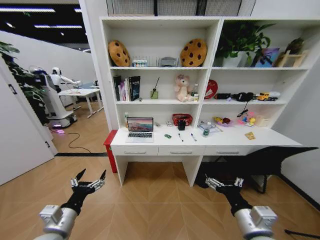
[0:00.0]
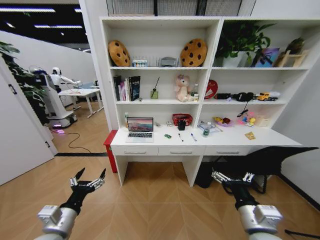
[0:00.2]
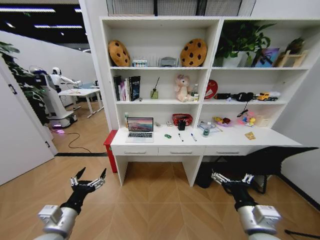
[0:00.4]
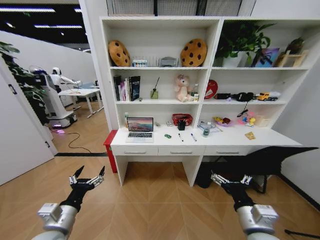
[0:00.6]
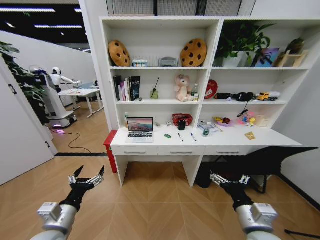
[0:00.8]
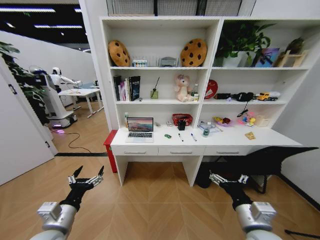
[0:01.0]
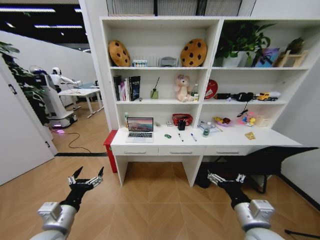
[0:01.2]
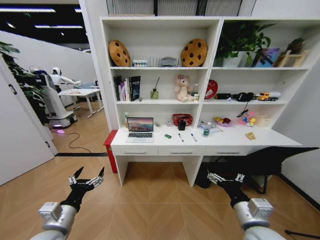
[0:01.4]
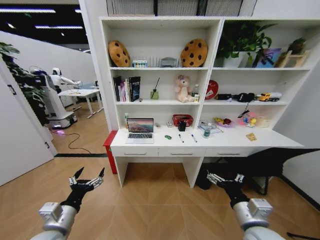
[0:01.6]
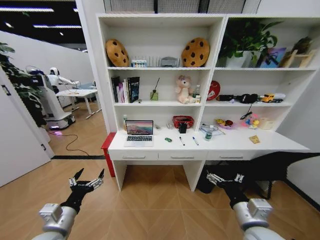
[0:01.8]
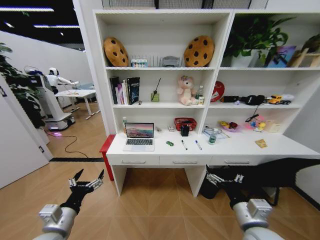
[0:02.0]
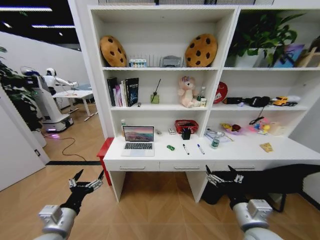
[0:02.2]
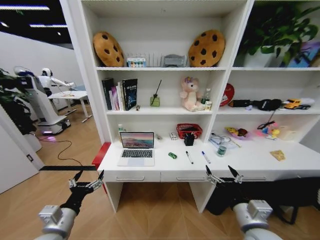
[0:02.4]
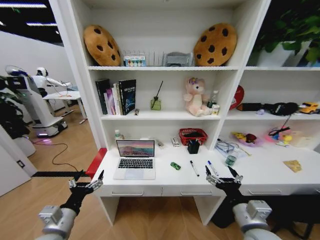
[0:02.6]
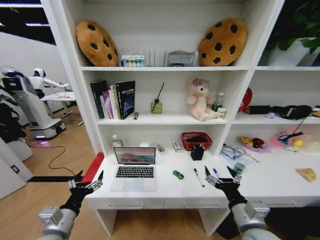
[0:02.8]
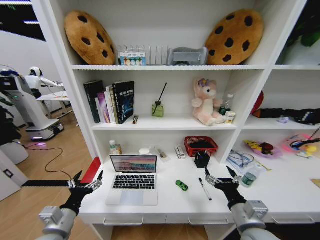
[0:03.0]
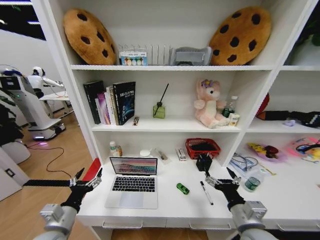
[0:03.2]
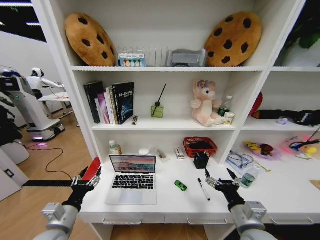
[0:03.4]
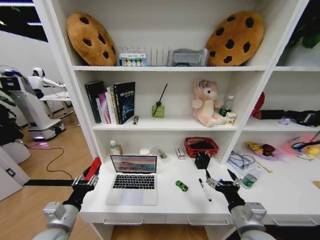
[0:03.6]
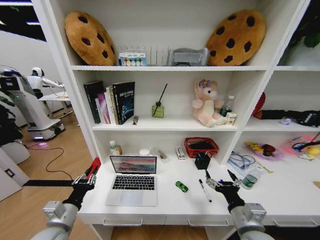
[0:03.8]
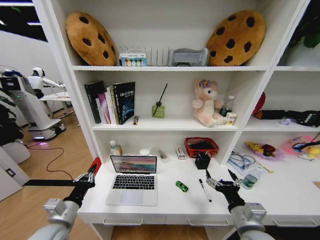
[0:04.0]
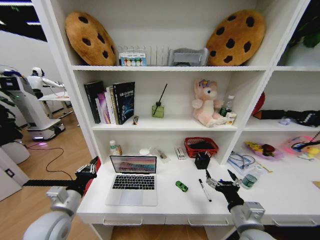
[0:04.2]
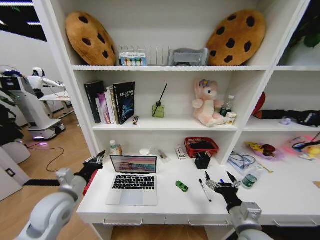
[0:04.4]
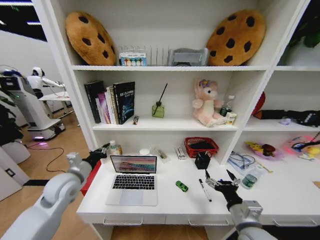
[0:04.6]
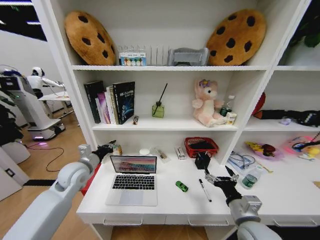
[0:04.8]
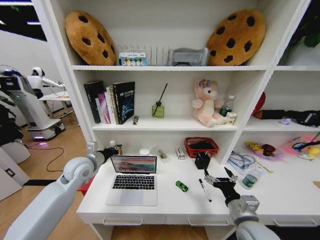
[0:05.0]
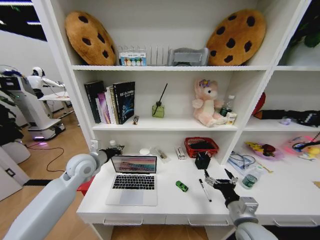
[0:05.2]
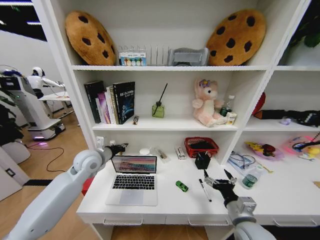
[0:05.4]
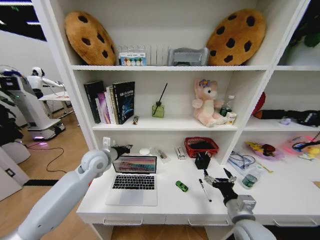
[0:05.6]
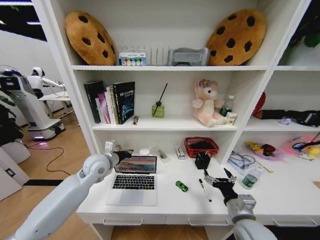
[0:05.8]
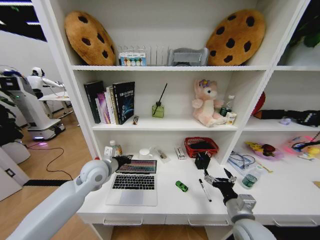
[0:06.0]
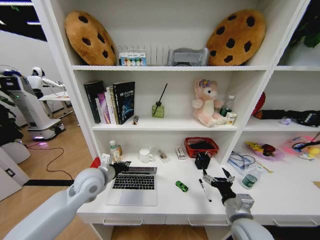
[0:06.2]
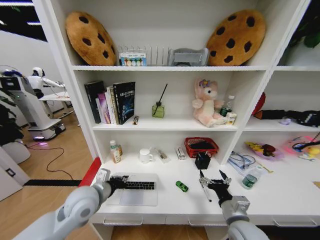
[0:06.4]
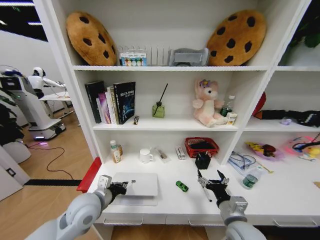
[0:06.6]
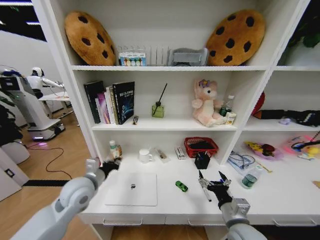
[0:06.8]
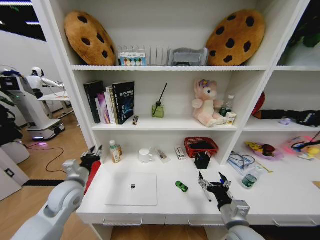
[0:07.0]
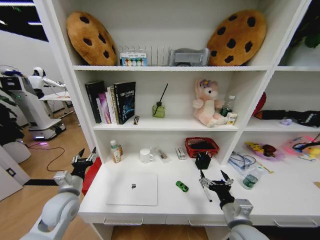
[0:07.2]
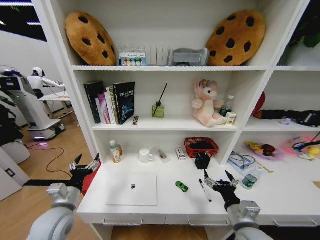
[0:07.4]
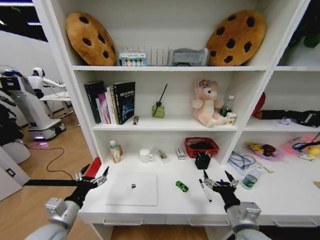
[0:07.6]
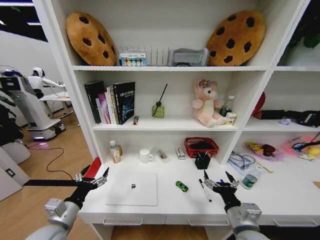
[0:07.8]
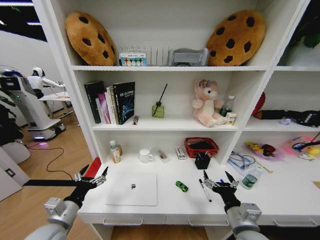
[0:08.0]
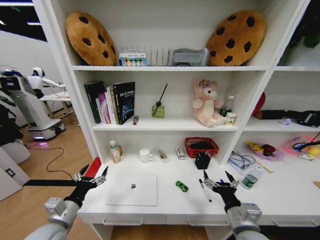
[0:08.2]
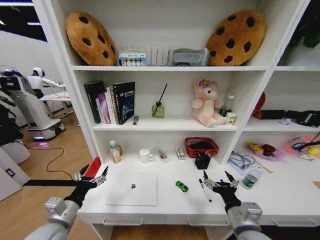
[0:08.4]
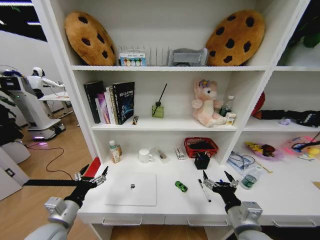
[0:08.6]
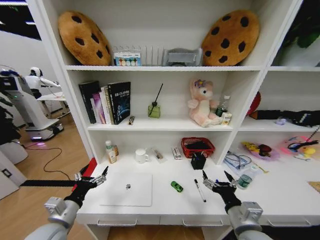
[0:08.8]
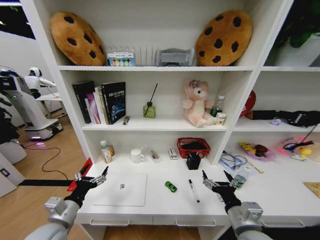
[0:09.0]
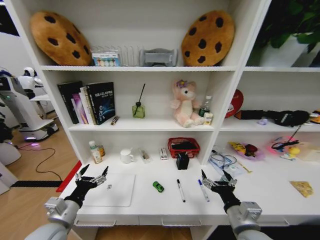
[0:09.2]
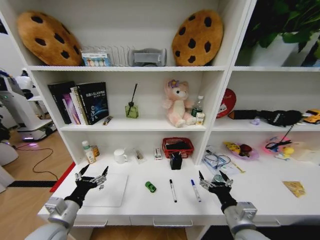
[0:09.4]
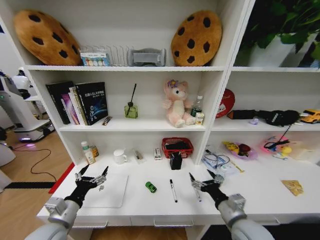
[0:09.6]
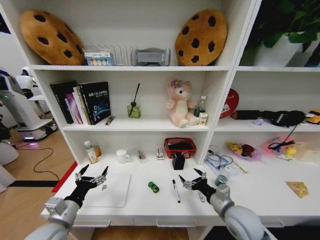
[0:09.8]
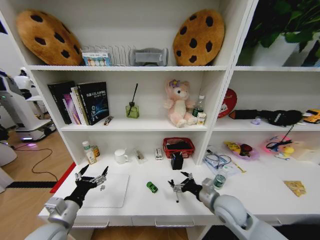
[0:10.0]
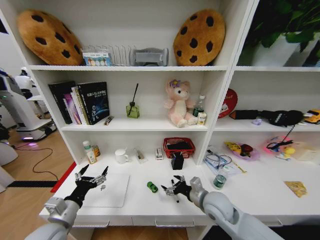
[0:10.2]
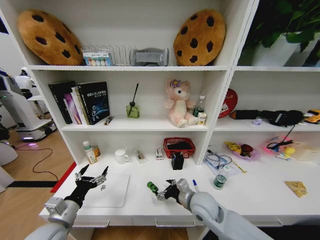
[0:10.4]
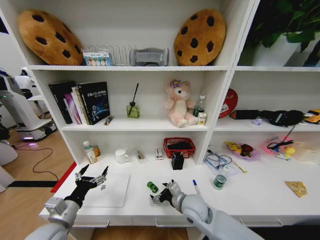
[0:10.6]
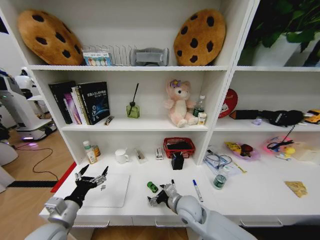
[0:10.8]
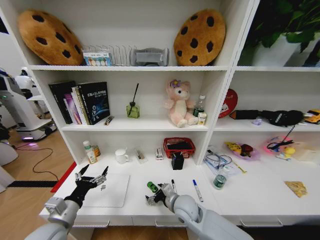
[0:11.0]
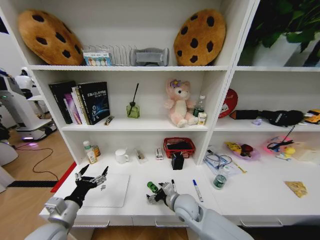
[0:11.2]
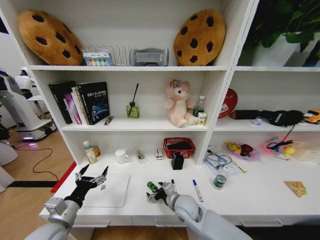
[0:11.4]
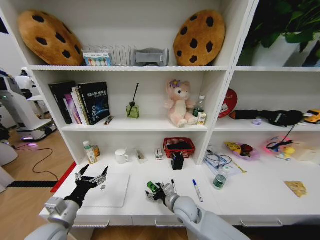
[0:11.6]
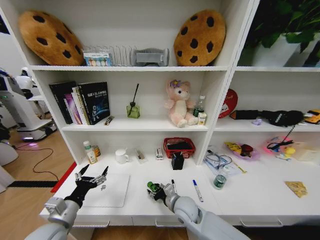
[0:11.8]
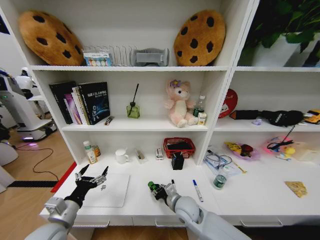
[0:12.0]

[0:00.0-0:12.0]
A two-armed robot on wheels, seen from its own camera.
Task of the whole recording: Organize the objects on the table.
0:03.0 to 0:04.4: The left gripper moves forward and upward, roughly 10 cm, and closes up.
0:04.4 to 0:06.0: The left gripper goes about 15 cm forward and to the right.
0:06.0 to 0:07.6: The left gripper goes forward and backward, some 20 cm each way, reversing 2 times, and opens its fingers.
0:09.0 to 0:10.4: The right gripper is displaced forward and to the left by some 15 cm.
0:10.4 to 0:12.0: The right gripper moves downward, about 5 cm, and closes its fingers.

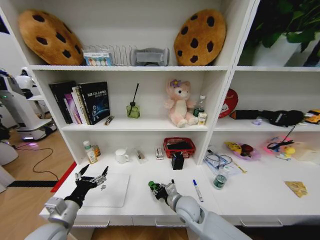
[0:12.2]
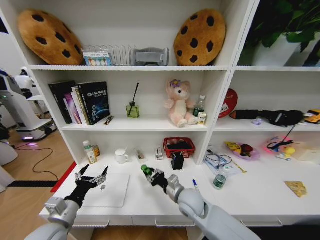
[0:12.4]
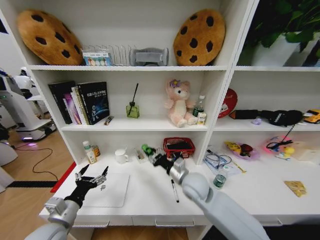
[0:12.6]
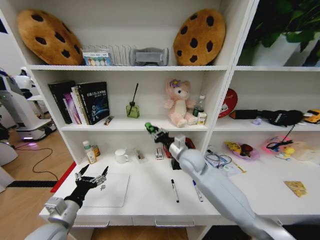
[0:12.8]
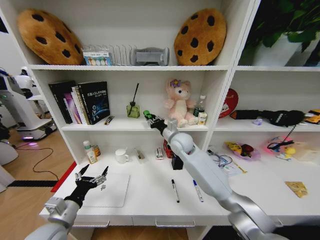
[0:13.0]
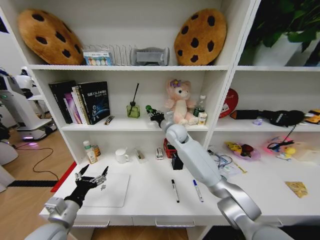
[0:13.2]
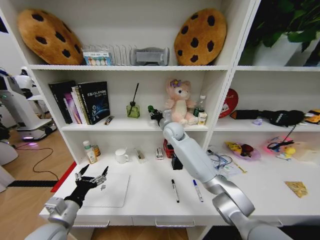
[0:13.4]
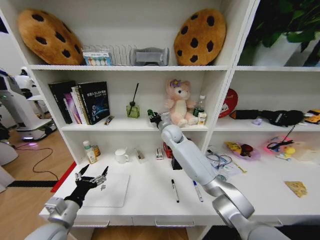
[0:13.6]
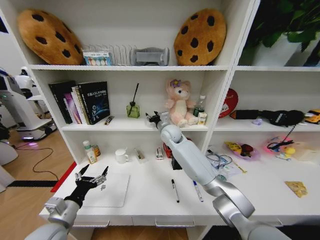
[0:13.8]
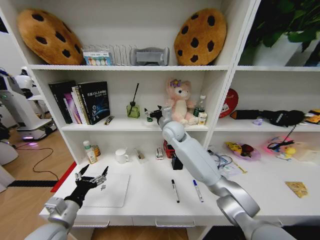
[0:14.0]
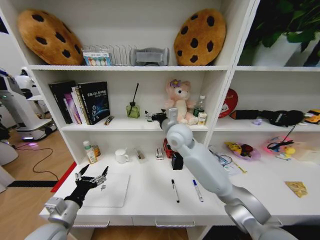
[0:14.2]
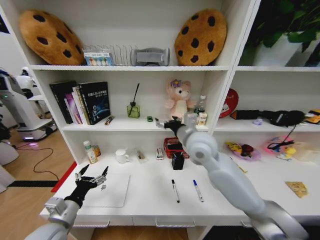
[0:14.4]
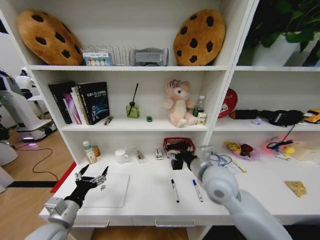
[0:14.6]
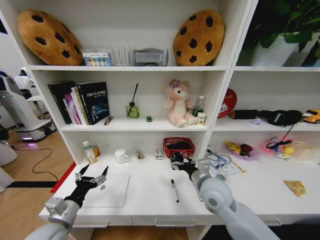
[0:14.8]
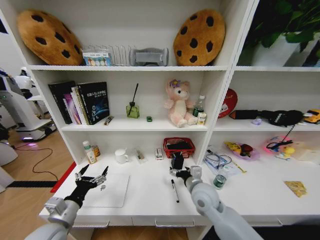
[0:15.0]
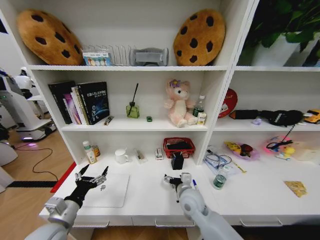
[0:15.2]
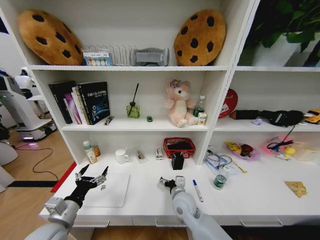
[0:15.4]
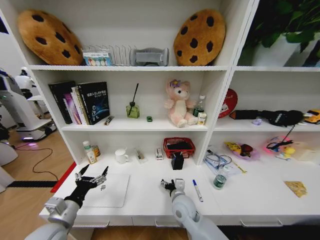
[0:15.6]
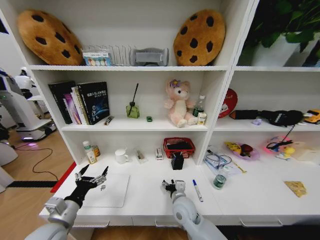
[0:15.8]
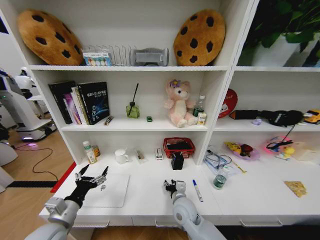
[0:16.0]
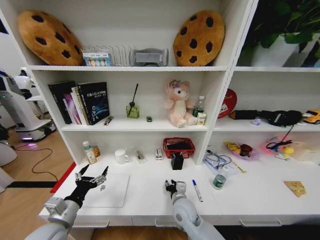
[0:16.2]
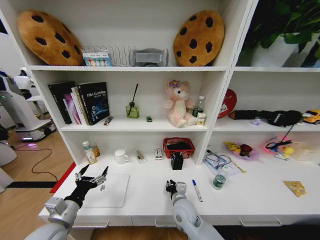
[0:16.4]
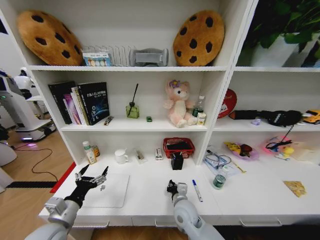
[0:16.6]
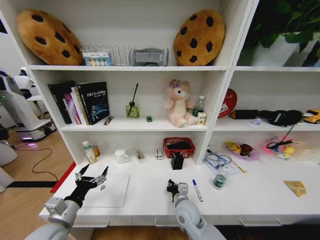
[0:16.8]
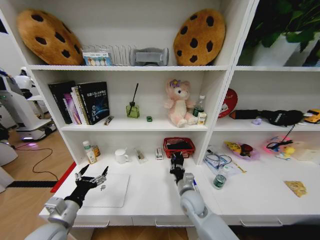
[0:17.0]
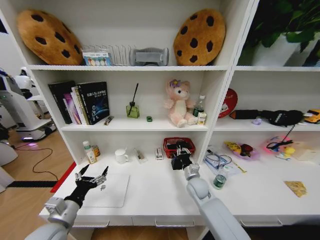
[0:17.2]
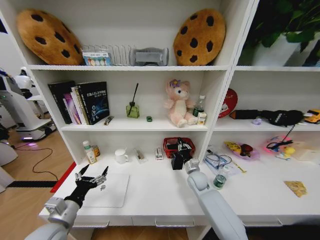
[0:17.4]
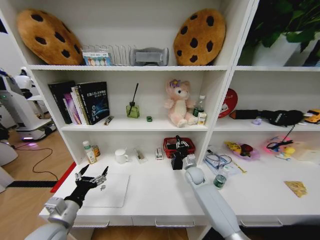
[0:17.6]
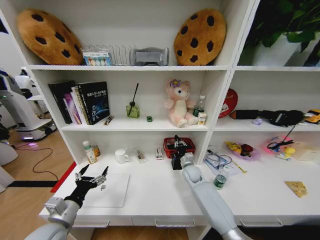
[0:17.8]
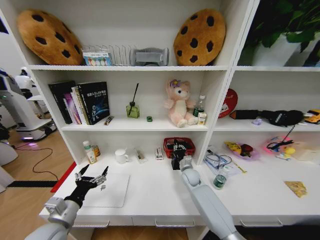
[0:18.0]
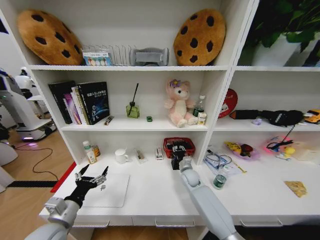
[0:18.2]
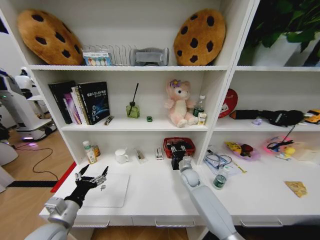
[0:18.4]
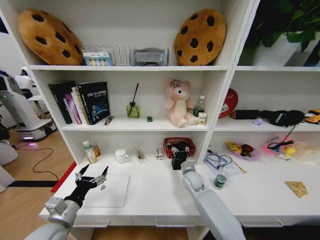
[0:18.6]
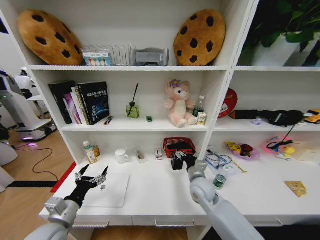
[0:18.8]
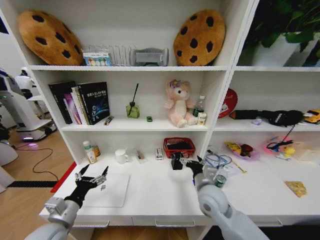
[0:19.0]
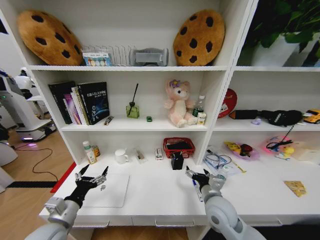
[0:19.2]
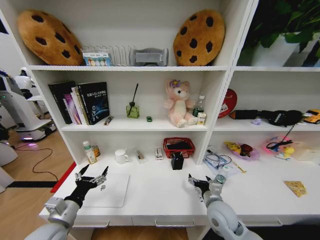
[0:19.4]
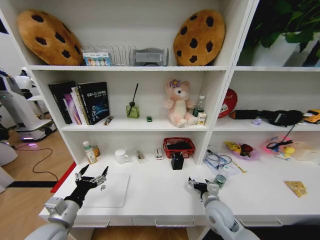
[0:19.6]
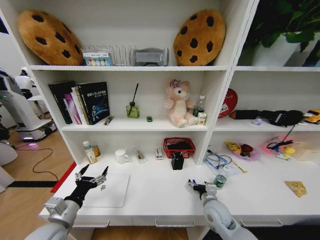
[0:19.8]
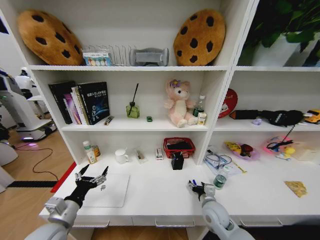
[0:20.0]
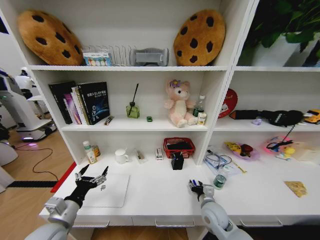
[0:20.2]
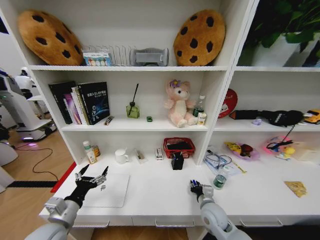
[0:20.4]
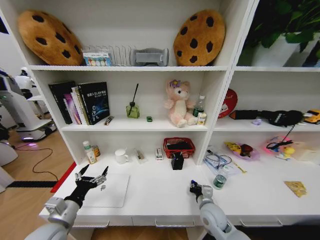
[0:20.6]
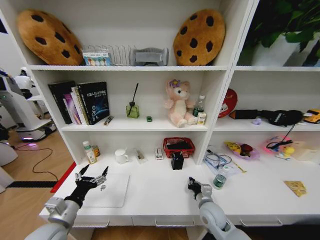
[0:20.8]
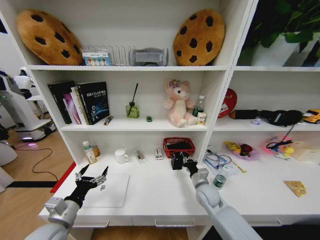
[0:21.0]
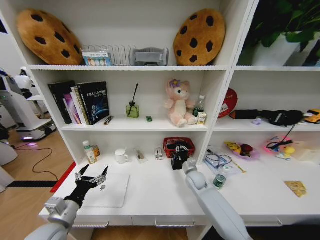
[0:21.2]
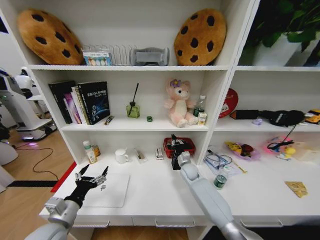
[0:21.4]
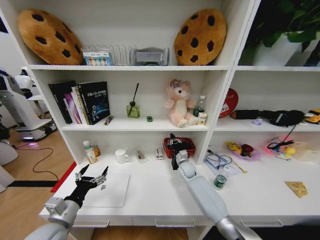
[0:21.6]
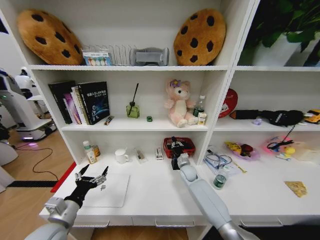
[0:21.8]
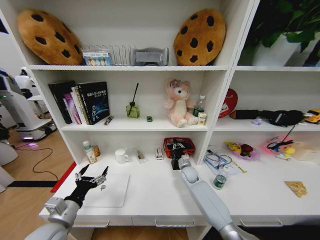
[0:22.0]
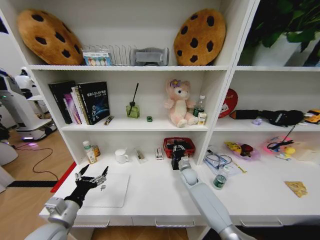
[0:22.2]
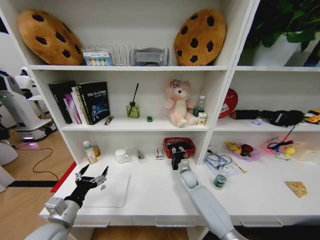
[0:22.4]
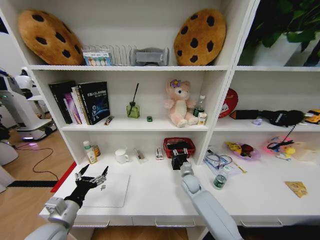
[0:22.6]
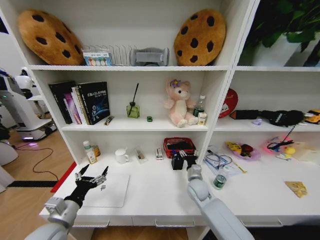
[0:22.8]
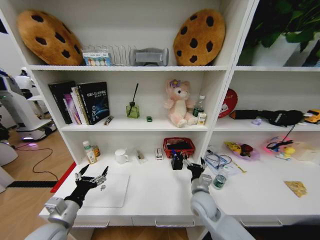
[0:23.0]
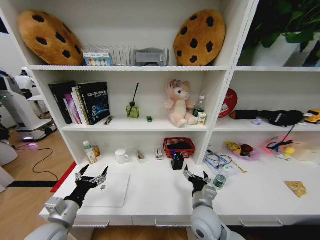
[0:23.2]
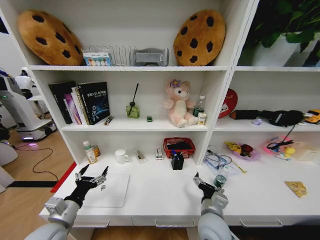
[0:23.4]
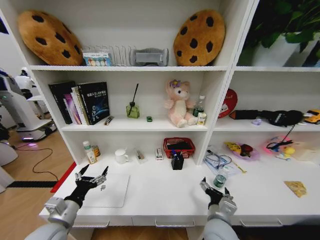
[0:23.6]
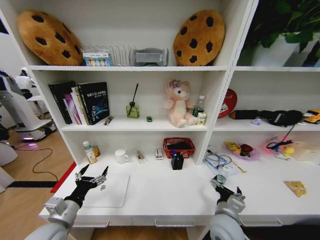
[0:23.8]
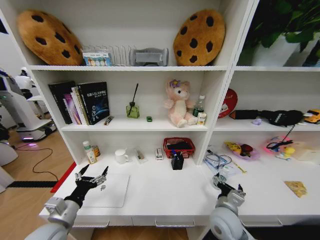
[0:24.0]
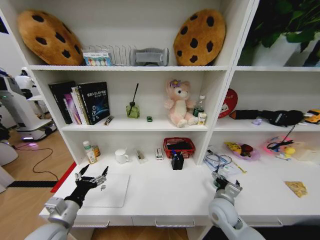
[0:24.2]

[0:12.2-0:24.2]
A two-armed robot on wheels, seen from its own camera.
Task of the whole recording: Organize the objects on the table.
0:12.2 to 0:13.8: The right gripper travels forward and upward by some 30 cm.
0:13.8 to 0:15.2: The right gripper heads backward and downward, covering approximately 30 cm, and opens.
0:15.2 to 0:16.6: The right gripper shifts by about 5 cm, and closes.
0:16.6 to 0:18.2: The right gripper is displaced forward and to the right by about 20 cm.
0:18.2 to 0:19.8: The right gripper travels backward by about 15 cm, and opens up.
0:19.8 to 0:21.2: The right gripper goes roughly 15 cm forward, and closes up.
0:21.2 to 0:22.6: The right gripper moves roughly 10 cm forward and comes back, and opens its fingers.
0:22.6 to 0:24.2: The right gripper travels backward, upward and to the right by about 15 cm, and opens its fingers.
